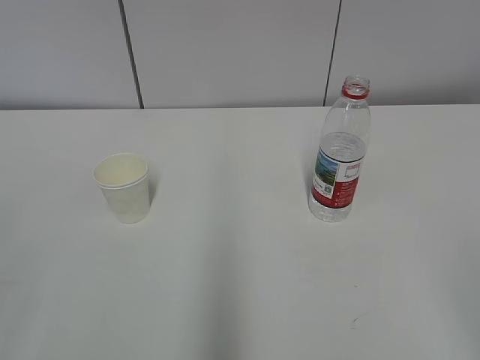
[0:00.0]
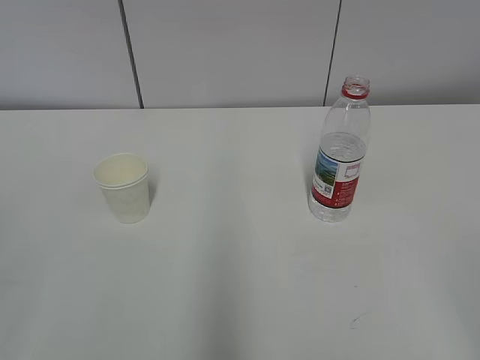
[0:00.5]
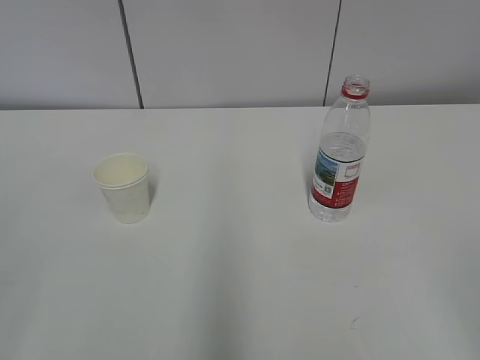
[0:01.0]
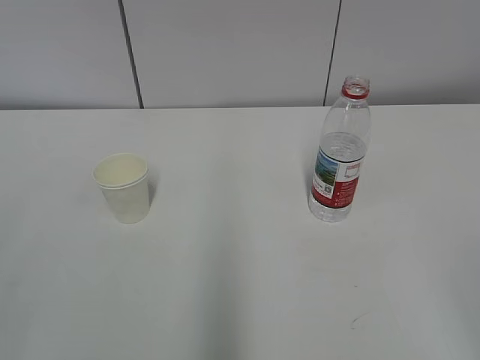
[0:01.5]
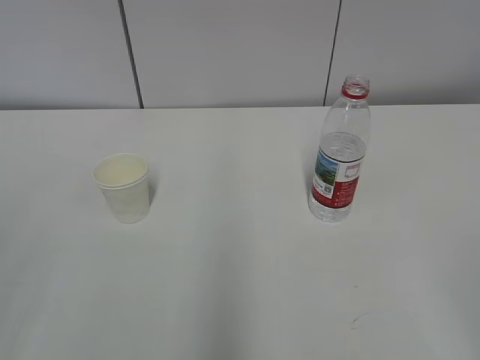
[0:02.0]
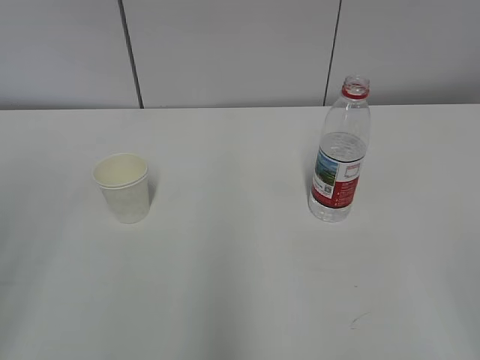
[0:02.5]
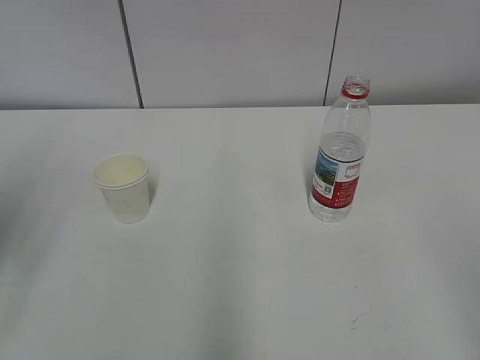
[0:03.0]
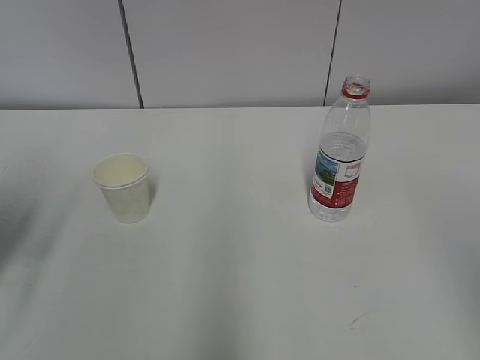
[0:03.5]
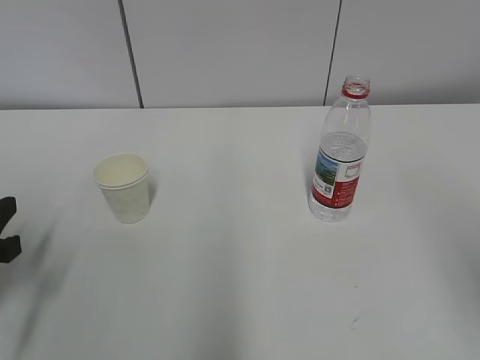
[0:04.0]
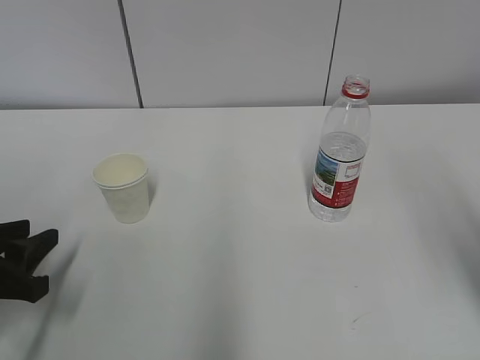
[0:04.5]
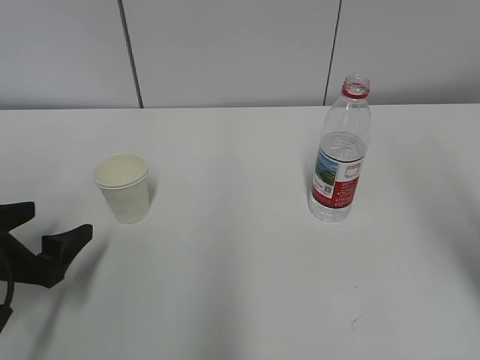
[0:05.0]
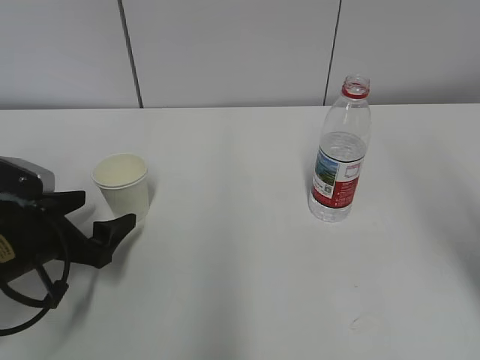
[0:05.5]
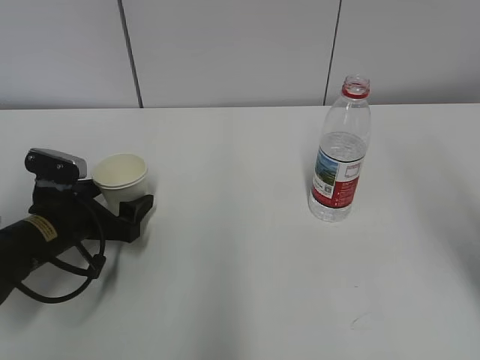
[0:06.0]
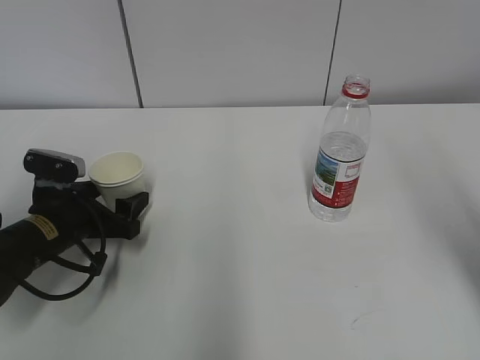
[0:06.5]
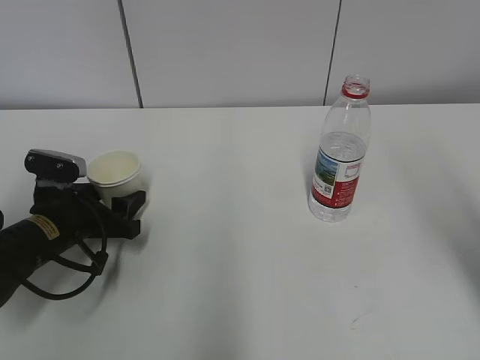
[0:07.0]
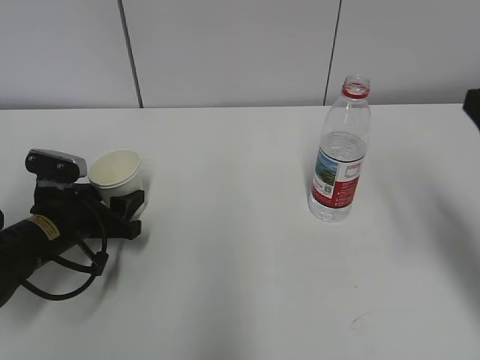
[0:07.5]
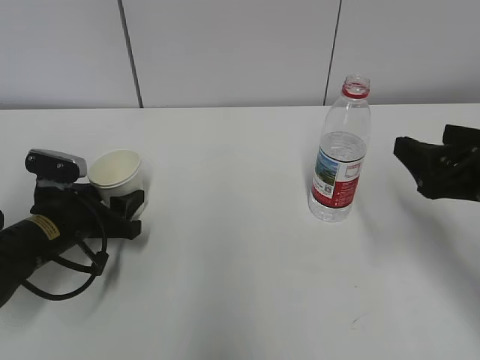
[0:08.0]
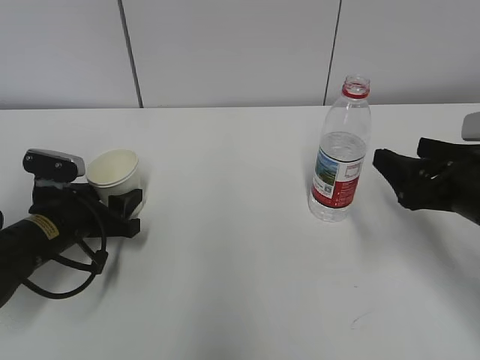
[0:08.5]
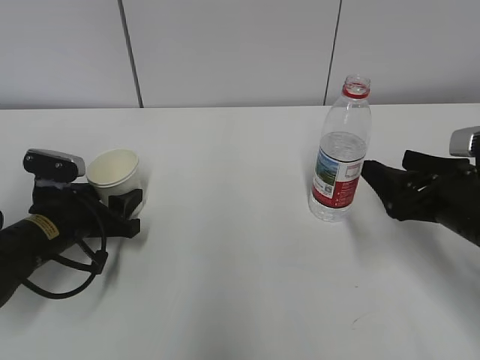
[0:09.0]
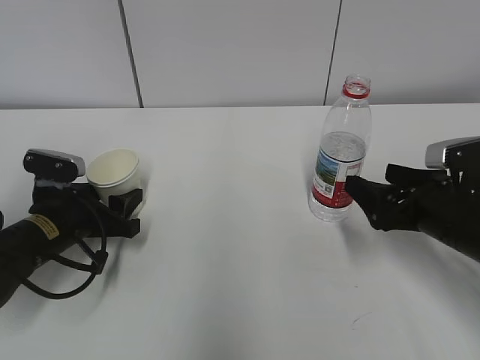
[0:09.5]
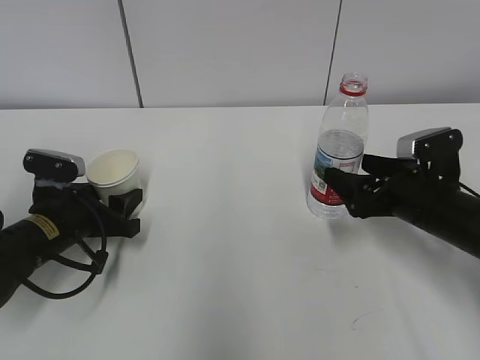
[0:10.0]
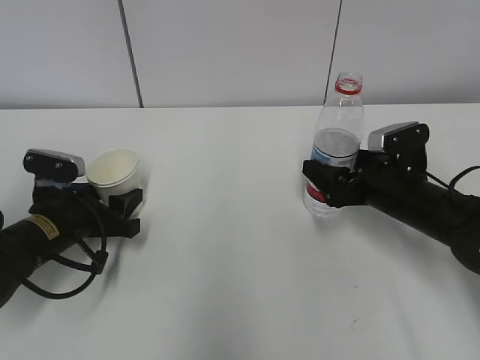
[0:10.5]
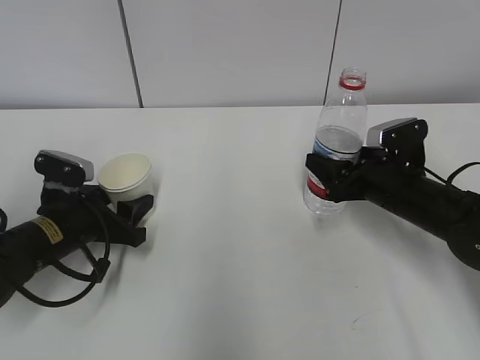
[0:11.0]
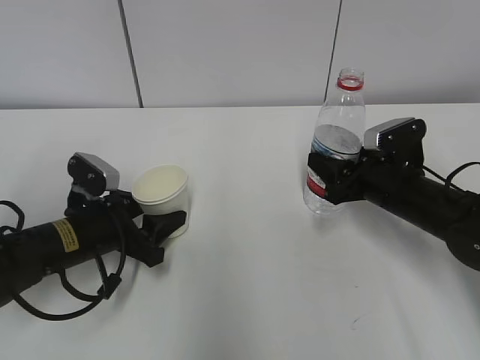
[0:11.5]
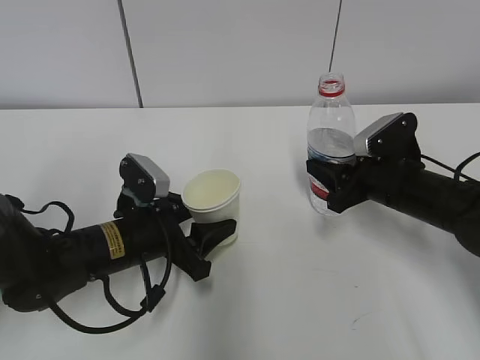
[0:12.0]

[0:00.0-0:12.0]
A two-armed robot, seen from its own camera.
Step, 0:00.0 to 0:09.0: Grab the paper cup with the left hand.
0:02.0 to 0:04.0: The left gripper moves forward and downward, roughly 25 cm, and closes up.
0:04.0 to 0:06.0: The left gripper travels forward, downward and to the right by about 15 cm, and opens its fingers.
0:06.0 to 0:08.0: The left gripper closes; the right gripper moves downward and forward, some 15 cm.
0:08.0 to 0:10.0: The right gripper heads downward and forward, covering approximately 10 cm.
0:10.0 to 0:12.0: The right gripper closes up. The left gripper is displaced to the right by about 10 cm.

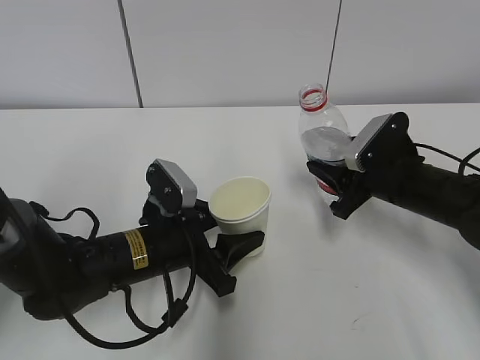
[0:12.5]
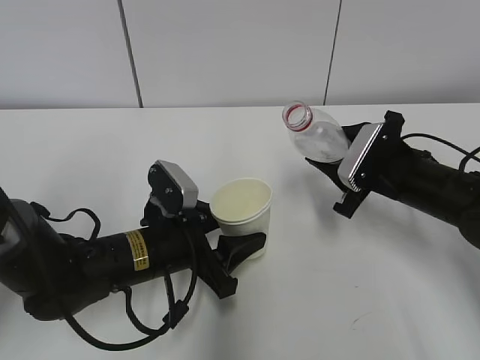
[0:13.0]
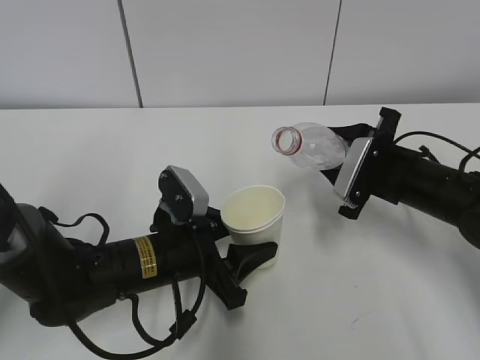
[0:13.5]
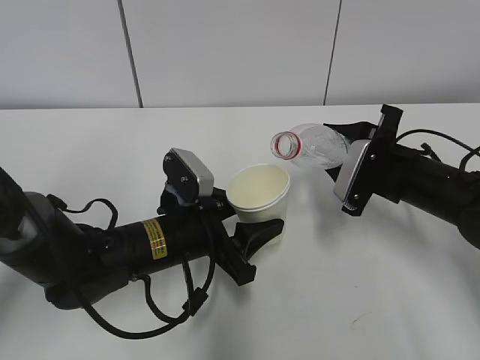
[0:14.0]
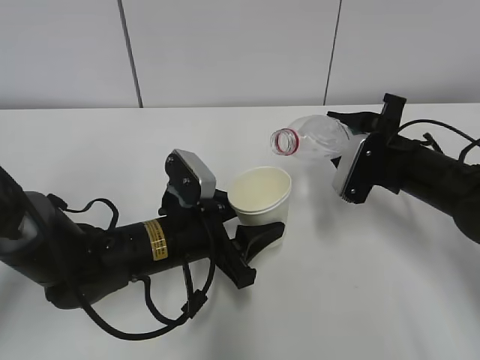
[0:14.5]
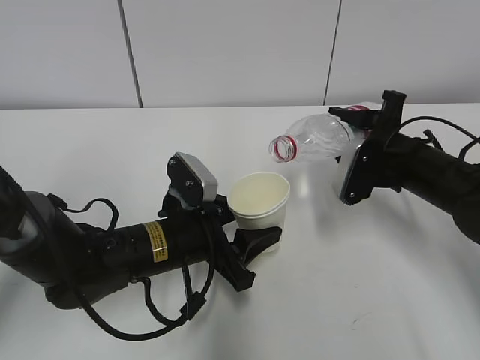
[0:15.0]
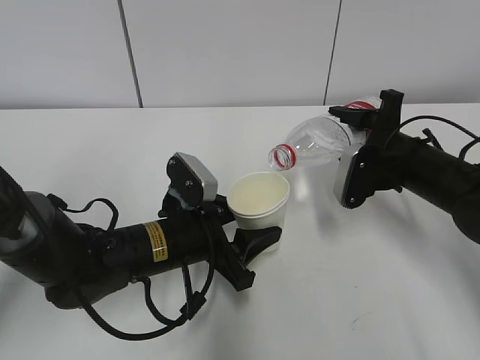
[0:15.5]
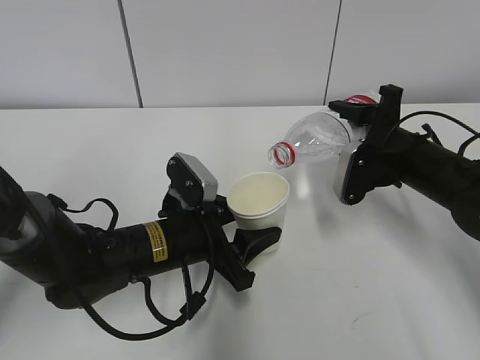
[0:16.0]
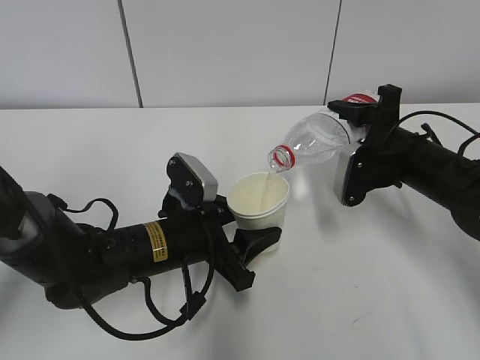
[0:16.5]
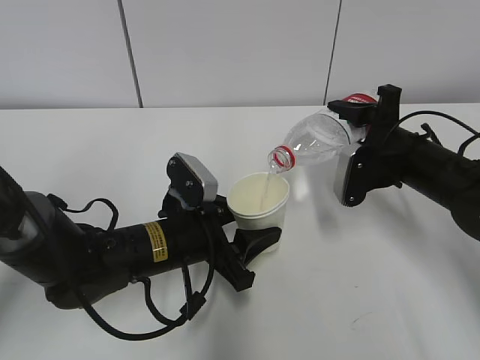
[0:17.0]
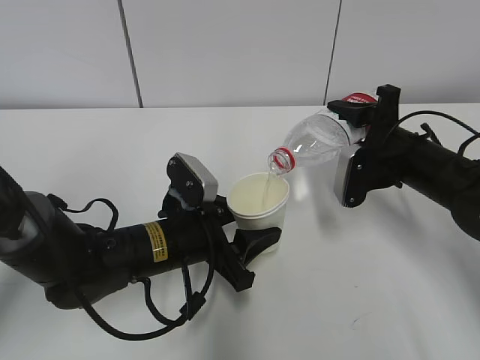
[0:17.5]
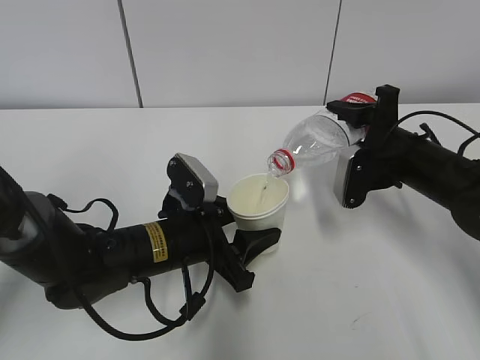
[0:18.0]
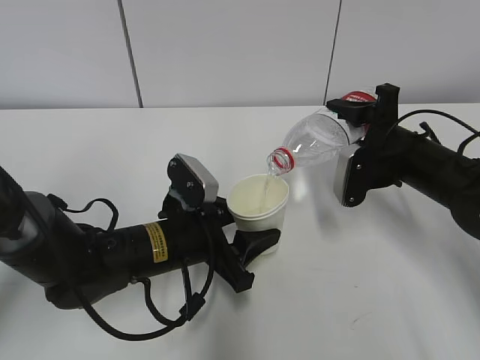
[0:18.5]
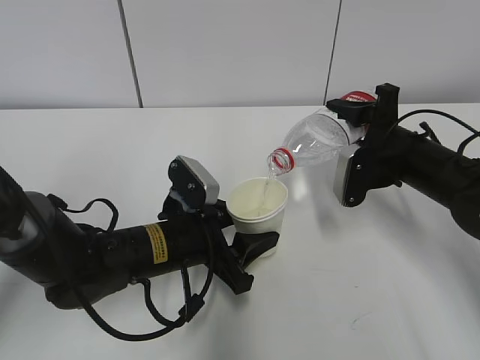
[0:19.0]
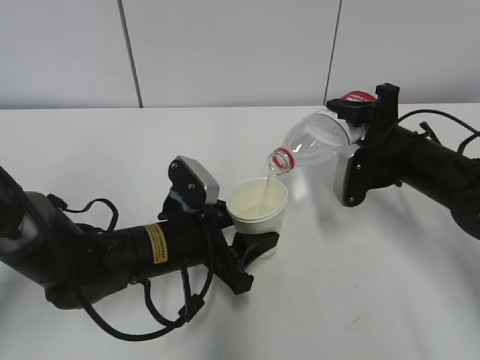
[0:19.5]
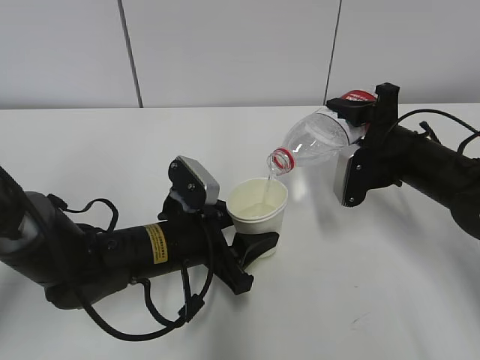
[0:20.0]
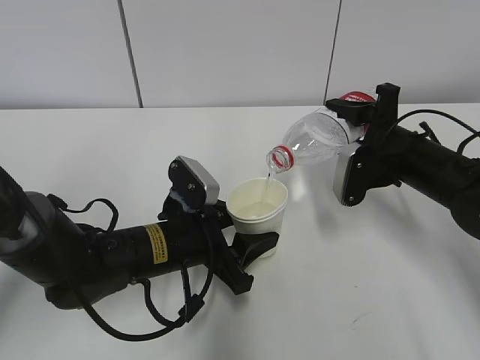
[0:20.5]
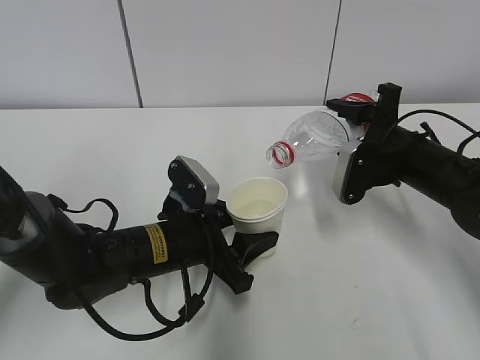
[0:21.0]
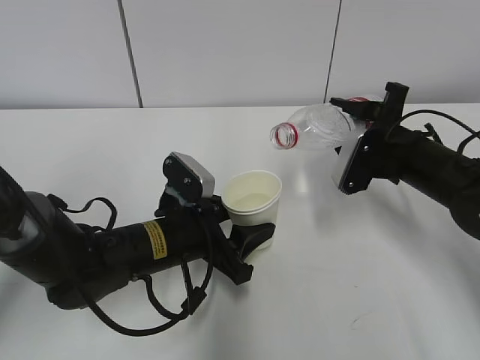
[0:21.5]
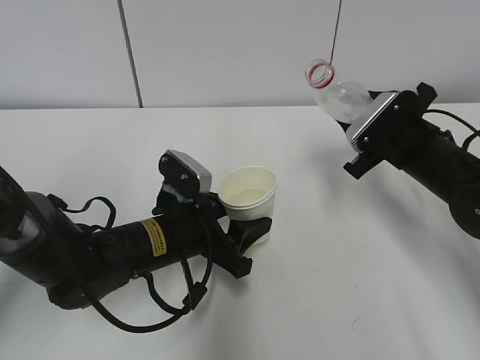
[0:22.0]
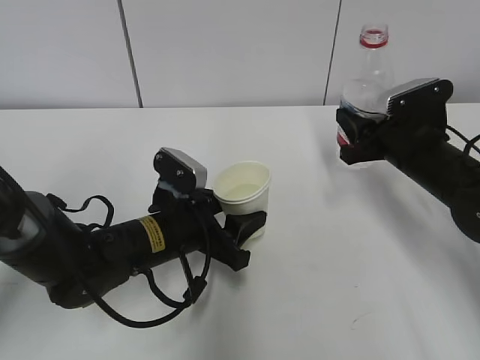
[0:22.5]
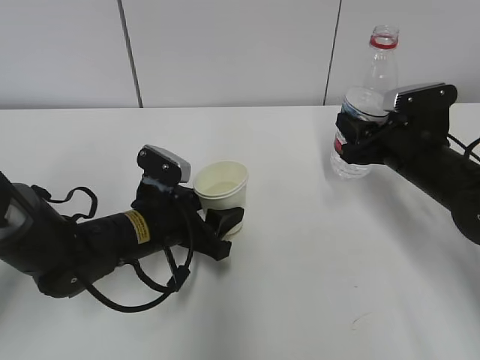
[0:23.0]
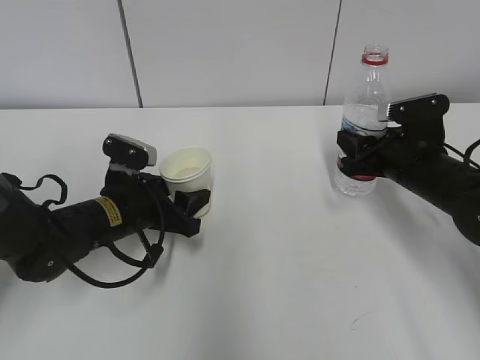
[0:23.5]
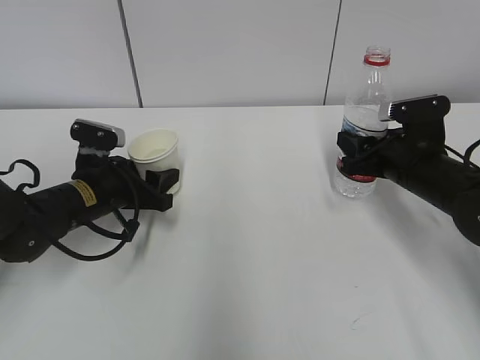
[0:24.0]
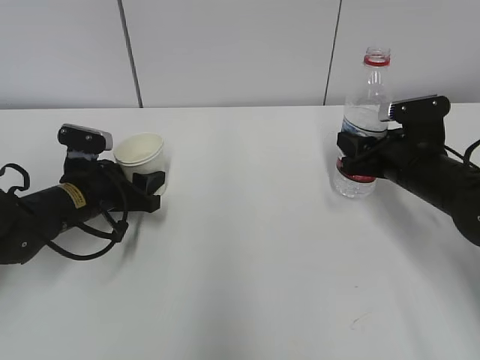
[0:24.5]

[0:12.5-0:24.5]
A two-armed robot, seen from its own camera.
Step, 0:13.5 to 0:17.0: Fill water with the left hand.
Step, 0:13.5 to 0:17.0: Pour water with the right hand.
Step, 0:17.5 to 0:18.5: Collect water with the right hand.
0:14.5 to 0:16.5: The grippers move only a little.
0:16.5 to 0:20.5: Both grippers stay put.
0:22.5 to 0:24.5: The left gripper goes some 15 cm to the left and forward.

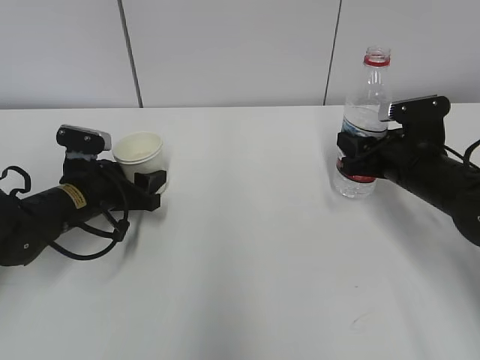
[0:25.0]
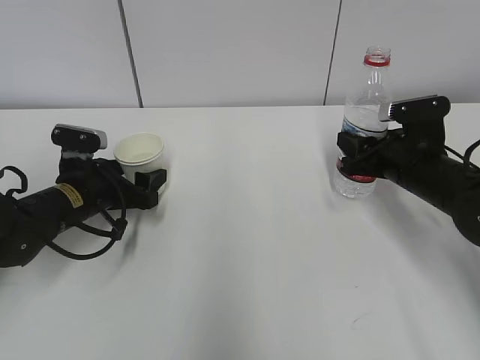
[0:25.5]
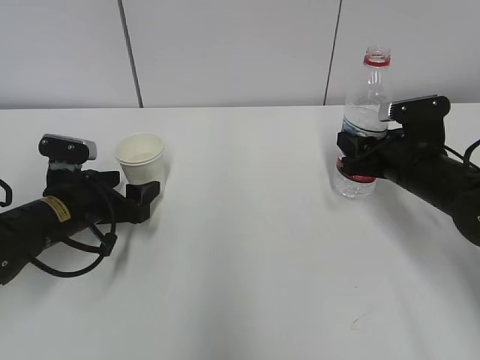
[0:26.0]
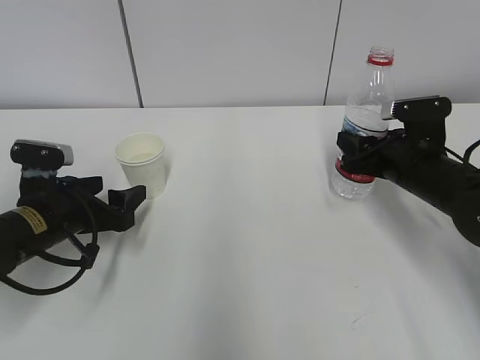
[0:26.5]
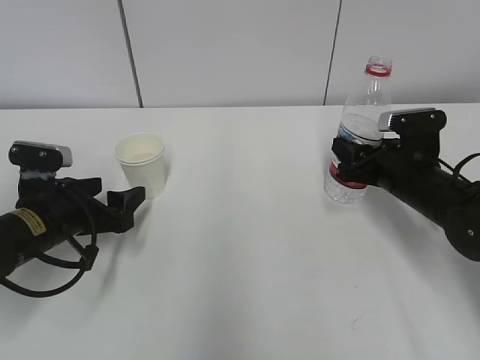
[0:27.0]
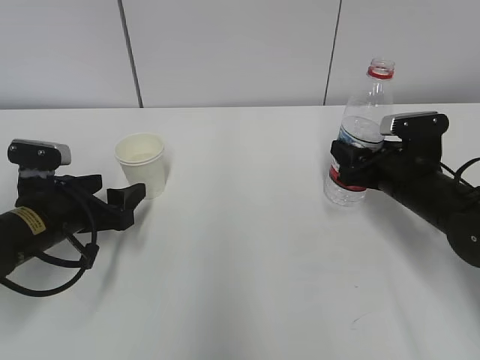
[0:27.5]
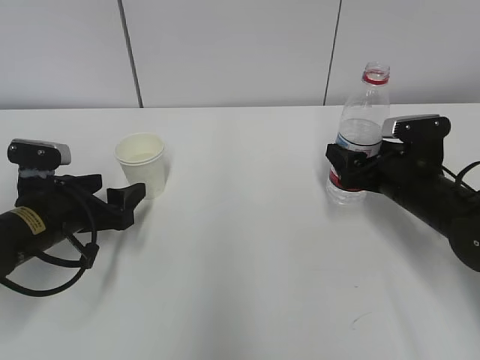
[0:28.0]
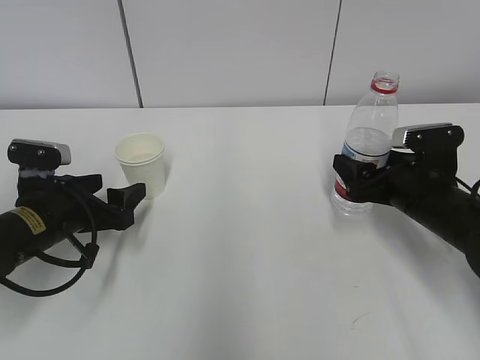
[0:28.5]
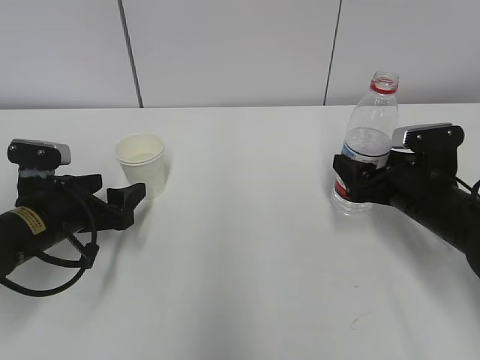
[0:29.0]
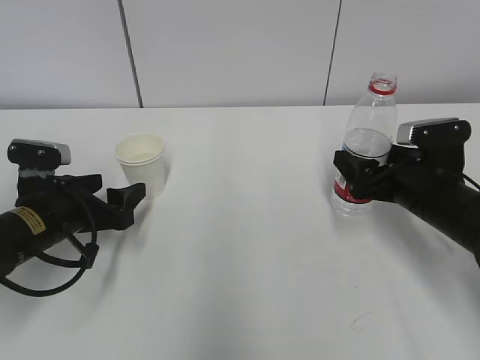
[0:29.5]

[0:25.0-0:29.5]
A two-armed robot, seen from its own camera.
0:25.0 to 0:27.0: The left gripper goes roughly 5 cm backward.
0:27.0 to 0:29.5: The right gripper opens.
